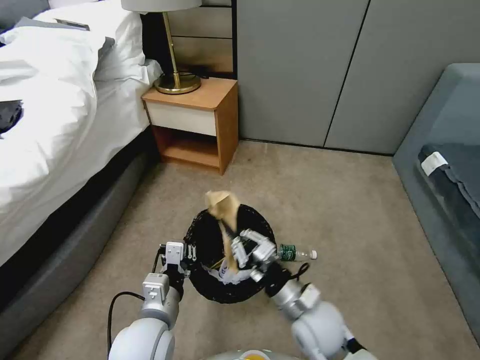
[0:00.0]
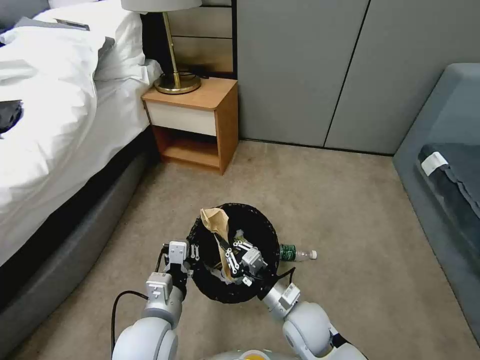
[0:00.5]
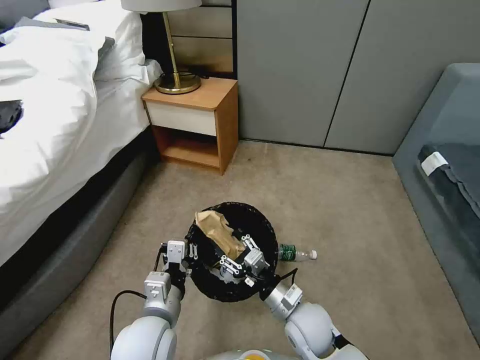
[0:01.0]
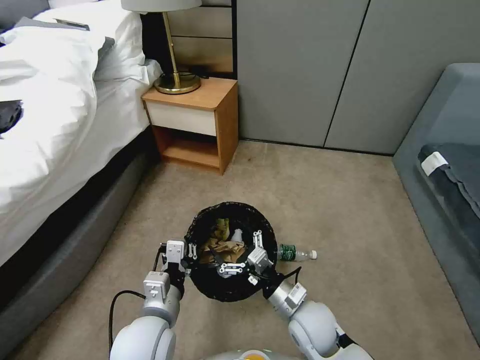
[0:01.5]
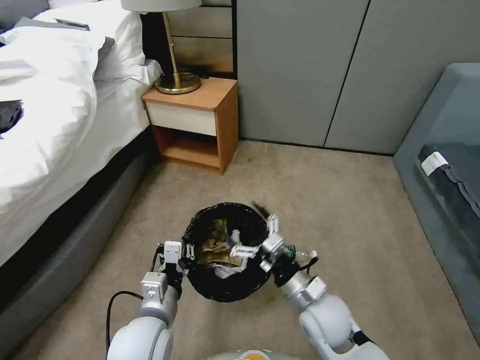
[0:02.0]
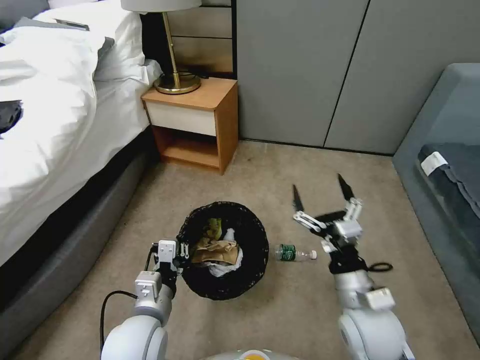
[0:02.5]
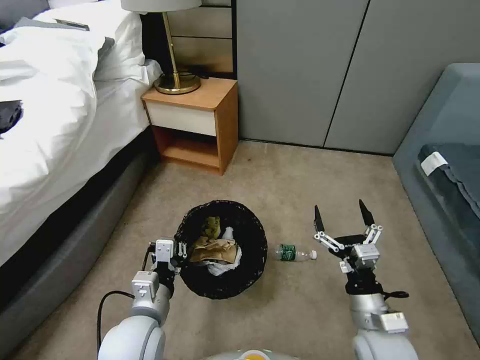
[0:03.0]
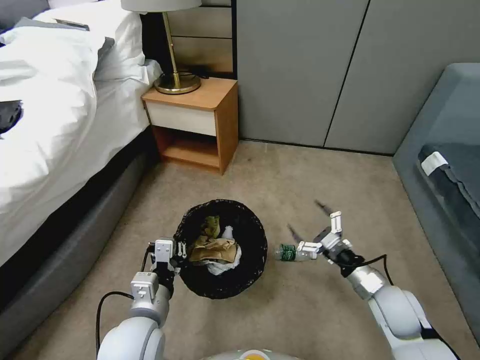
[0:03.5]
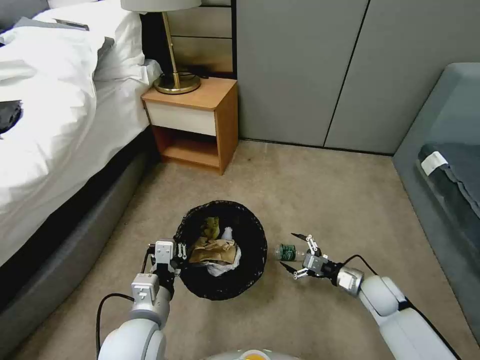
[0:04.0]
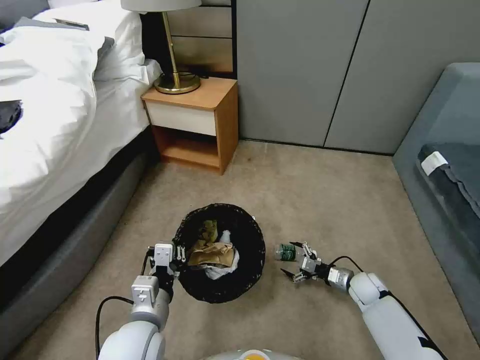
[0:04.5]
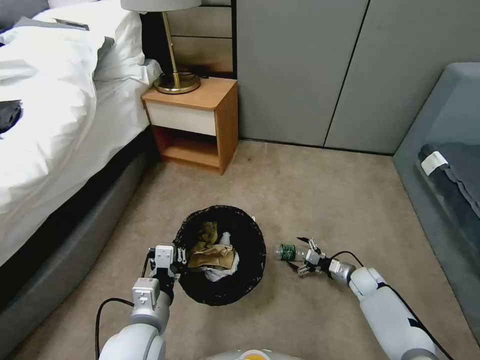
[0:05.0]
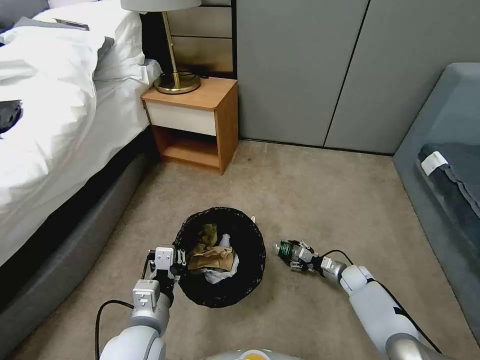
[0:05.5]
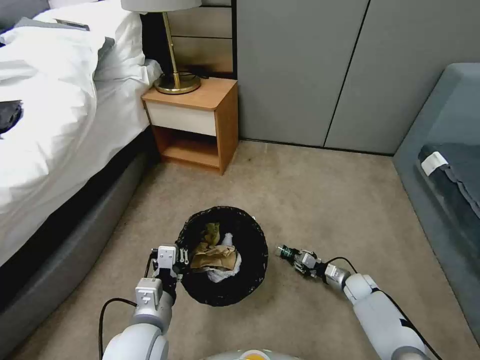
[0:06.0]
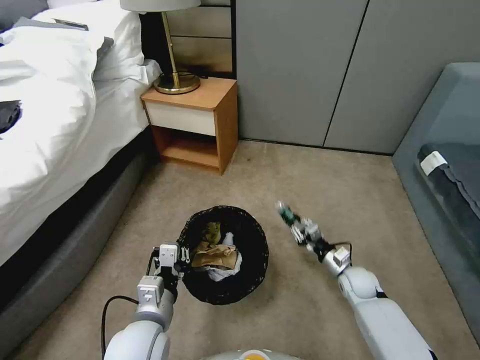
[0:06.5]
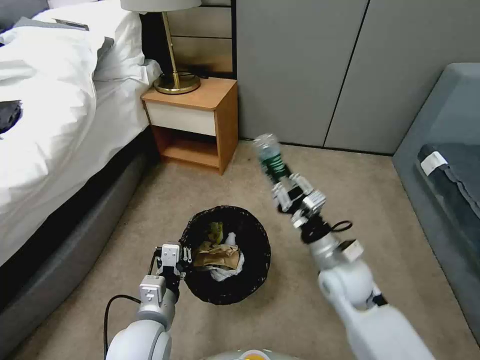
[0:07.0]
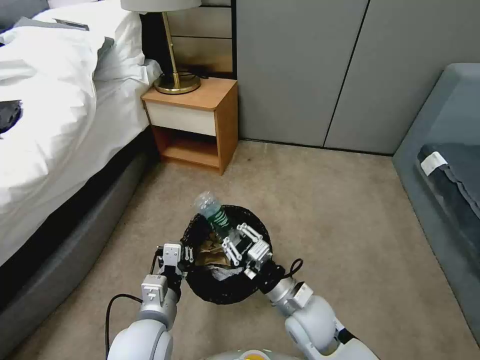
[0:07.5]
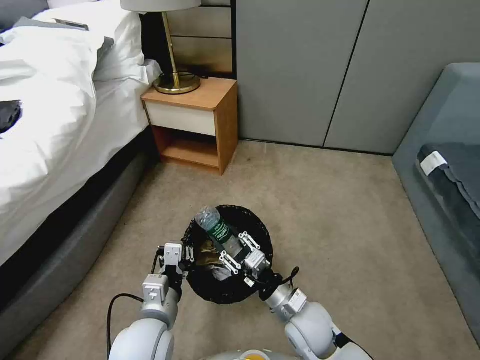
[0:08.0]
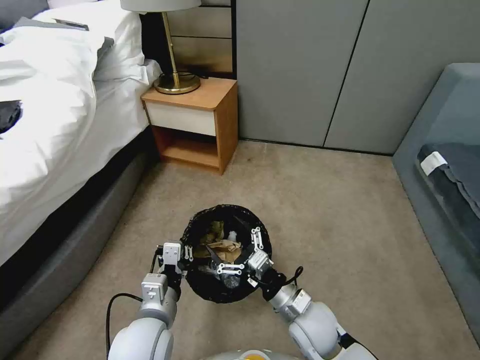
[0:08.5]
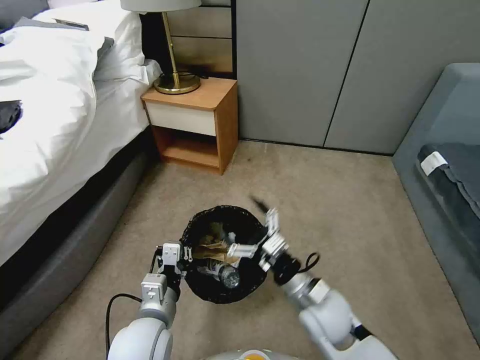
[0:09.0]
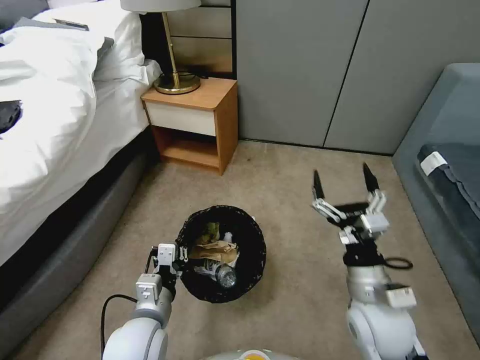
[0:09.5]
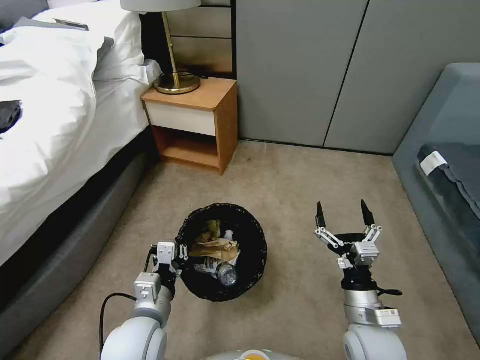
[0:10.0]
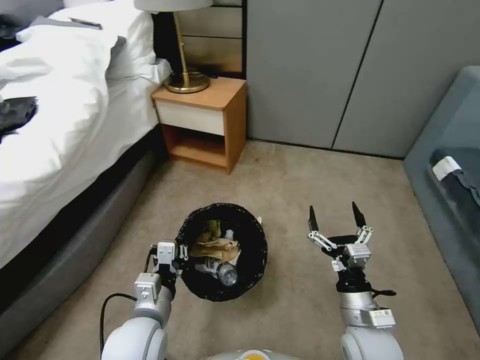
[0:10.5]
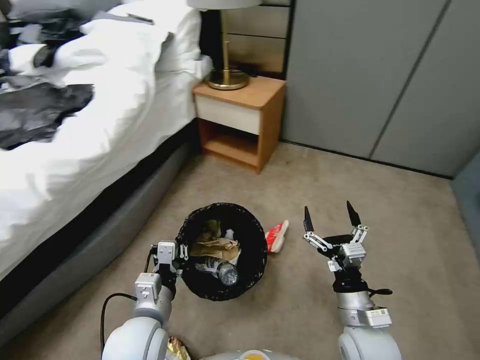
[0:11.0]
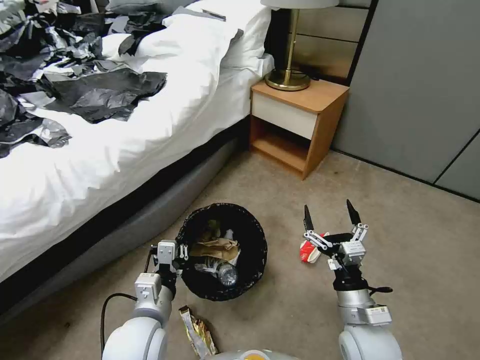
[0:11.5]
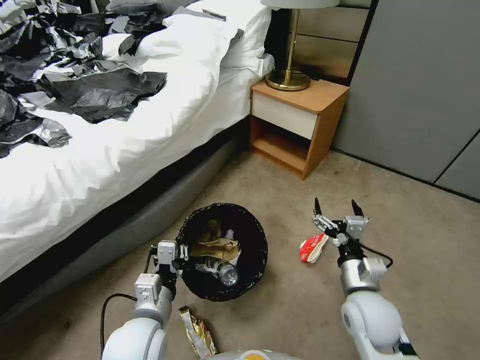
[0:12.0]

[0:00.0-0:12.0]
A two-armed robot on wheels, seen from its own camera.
Task of the whole recording: Pick up the trash bin, then pick up the garbage from the floor and place it into the trash bin.
0.0 to 2.0 s: The right gripper opens.
2.0 to 4.0 s: The right gripper goes roughly 25 cm to the right, downward and forward.
4.0 to 6.0 s: The right gripper heads downward, covering roughly 10 cm, and closes up.
6.0 to 8.0 s: The right gripper heads to the left, upward and backward, covering some 35 cm.
8.0 to 10.0 s: The right gripper heads to the right, covering approximately 10 cm, reaches approximately 10 cm upward, then returns, and opens up.

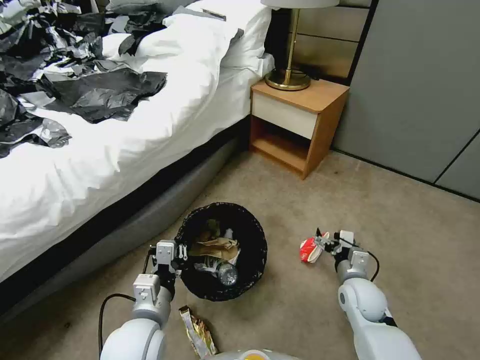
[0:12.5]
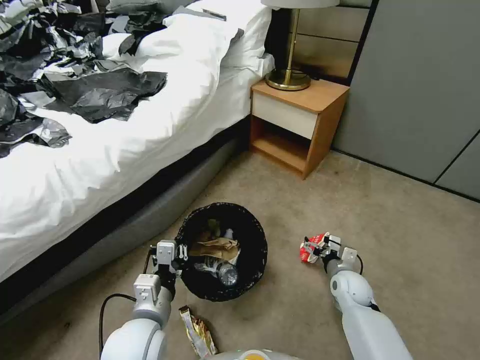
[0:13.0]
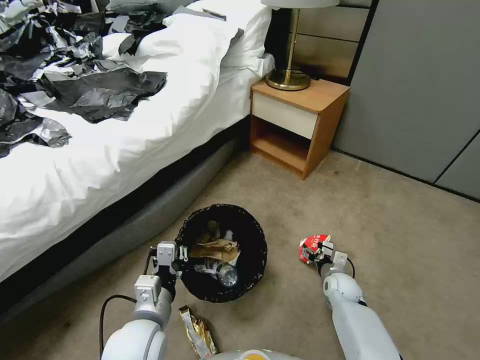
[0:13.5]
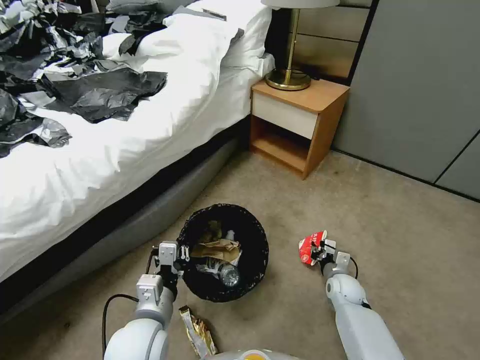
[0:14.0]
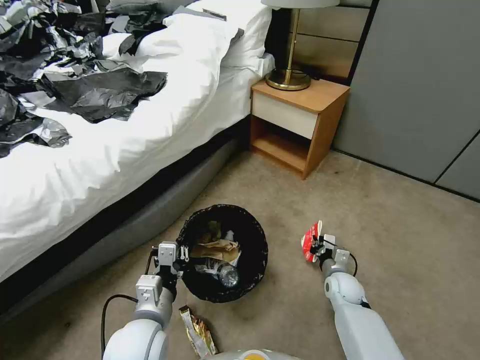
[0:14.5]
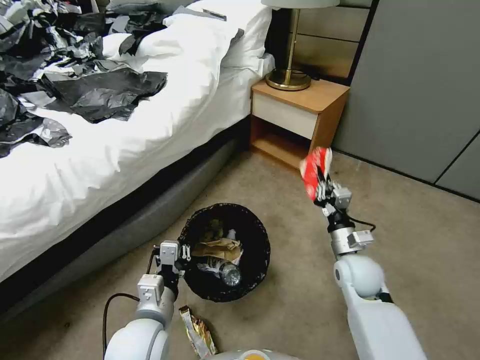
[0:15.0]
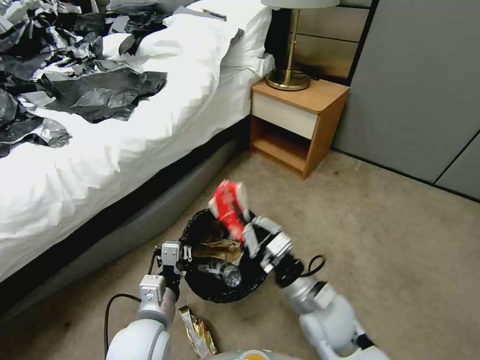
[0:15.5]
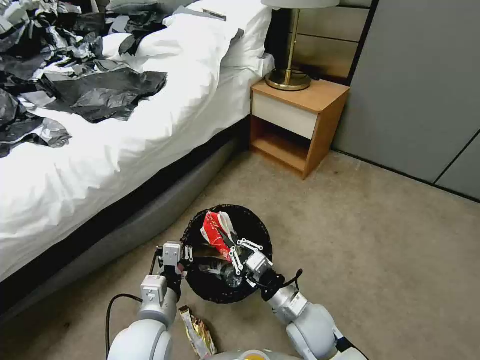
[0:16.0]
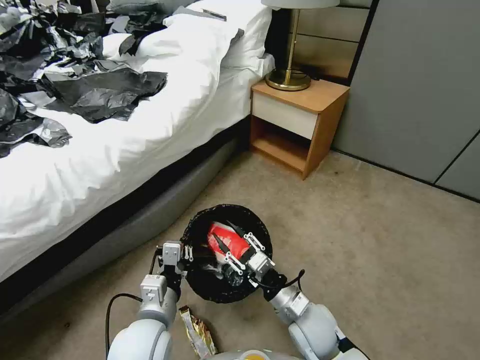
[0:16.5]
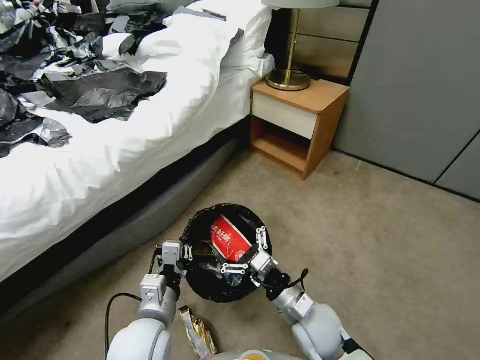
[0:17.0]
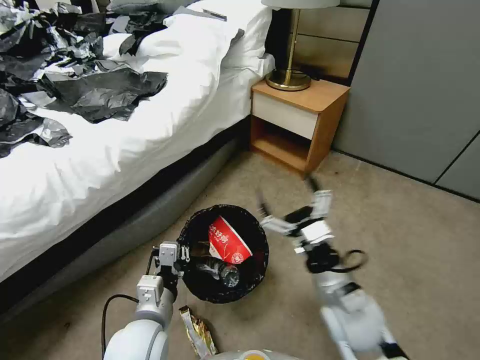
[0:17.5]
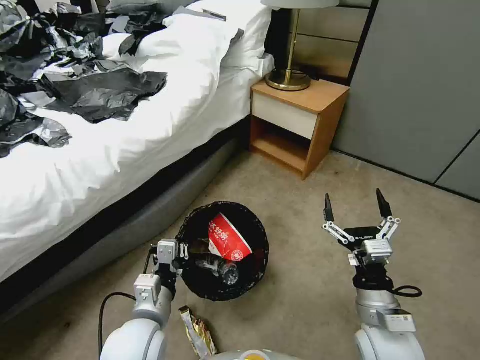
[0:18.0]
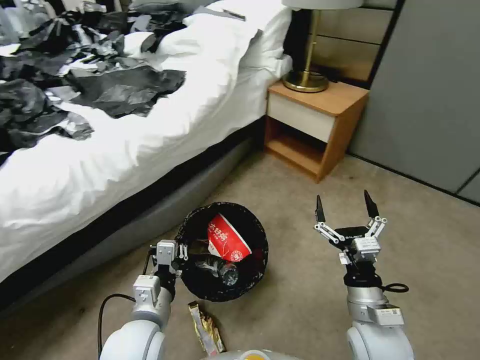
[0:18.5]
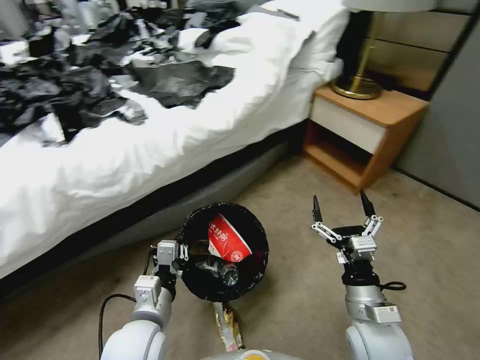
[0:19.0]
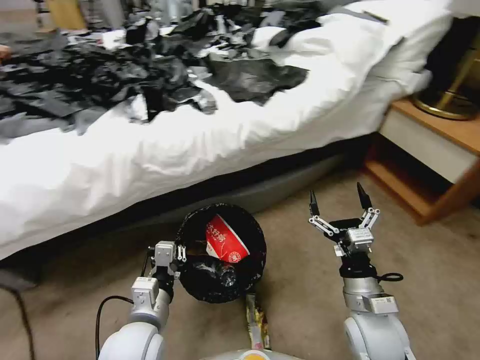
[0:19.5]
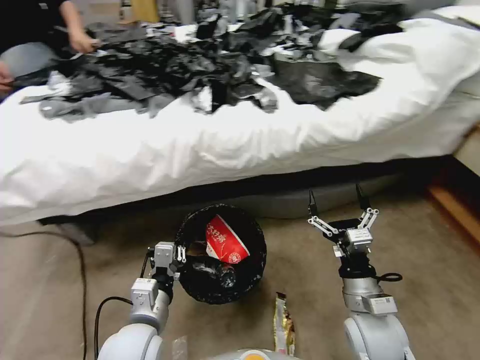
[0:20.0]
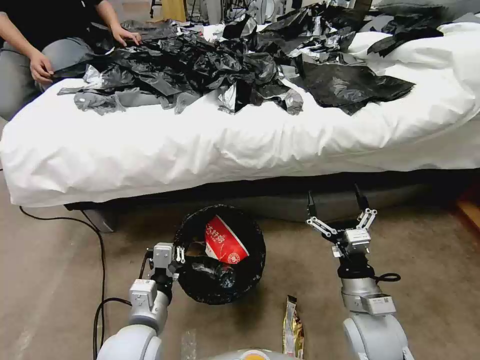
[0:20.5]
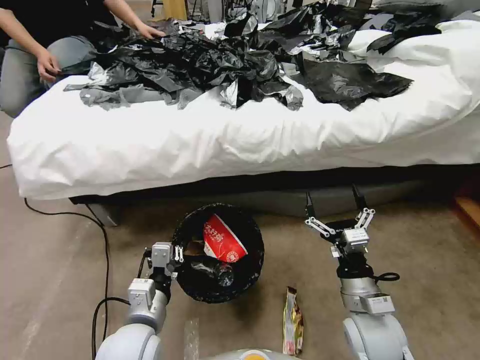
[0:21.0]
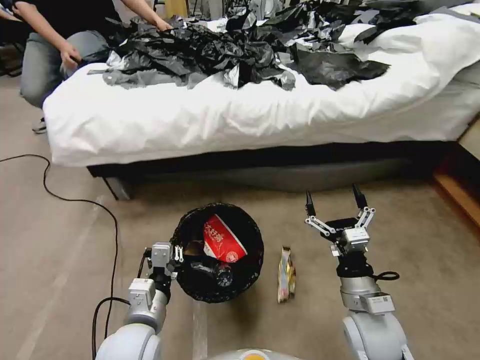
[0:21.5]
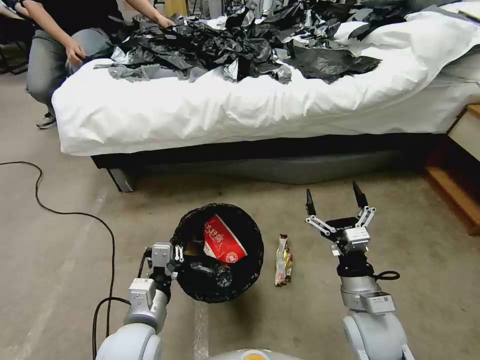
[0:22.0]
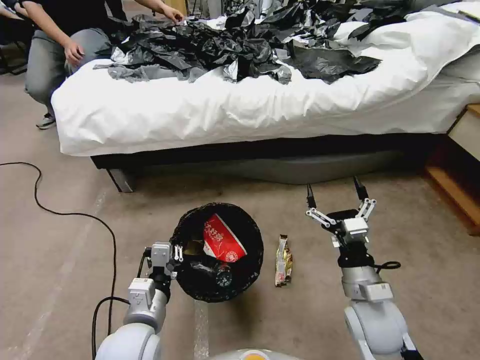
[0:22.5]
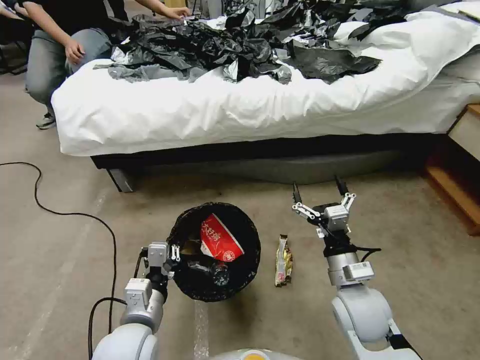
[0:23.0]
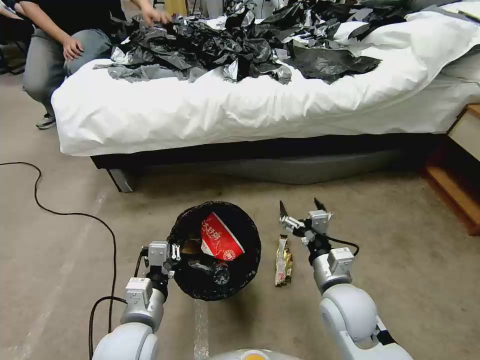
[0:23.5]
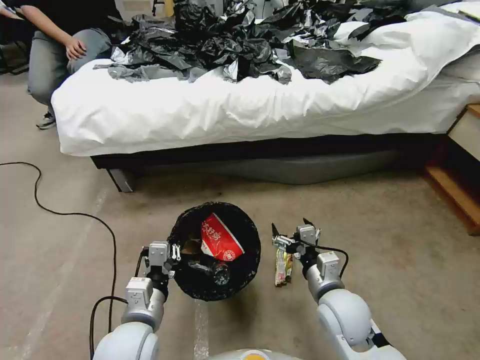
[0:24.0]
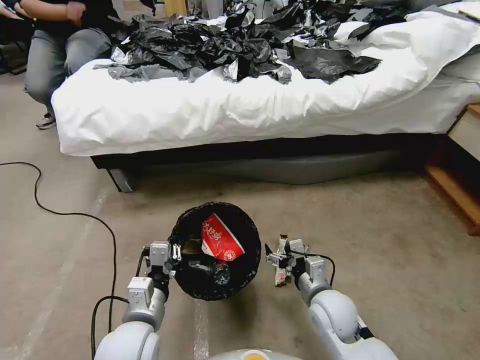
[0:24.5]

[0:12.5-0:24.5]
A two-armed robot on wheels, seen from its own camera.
Task of the whole recording: Pick up the trash bin, then pick up the garbage from the floor and place it into the trash bin.
12.5 to 14.5 s: The right gripper shifts roughly 10 cm downward and forward, and closes.
14.5 to 16.5 s: The right gripper is displaced to the left, upward and backward by about 20 cm, and opens.
16.5 to 18.5 s: The right gripper goes about 10 cm to the right and upward, and opens.
22.5 to 24.5 s: The right gripper heads downward and to the left, covering about 10 cm.

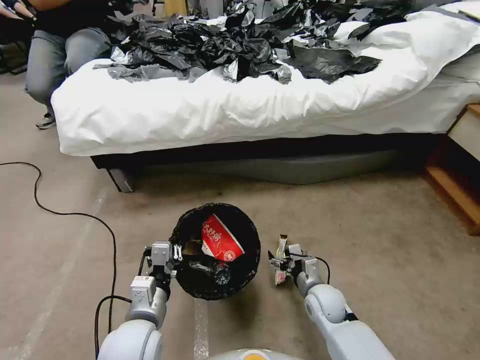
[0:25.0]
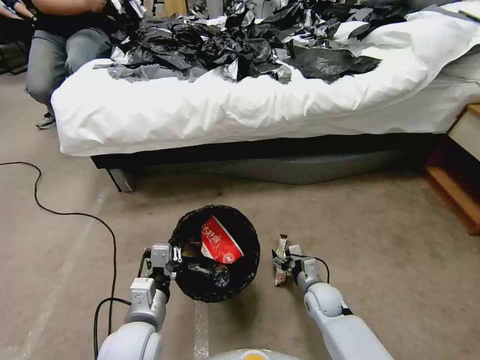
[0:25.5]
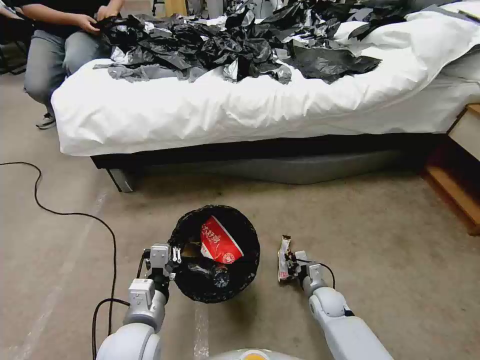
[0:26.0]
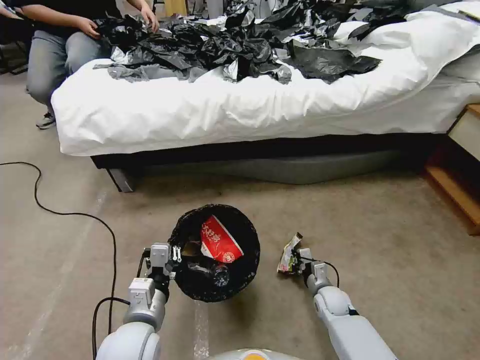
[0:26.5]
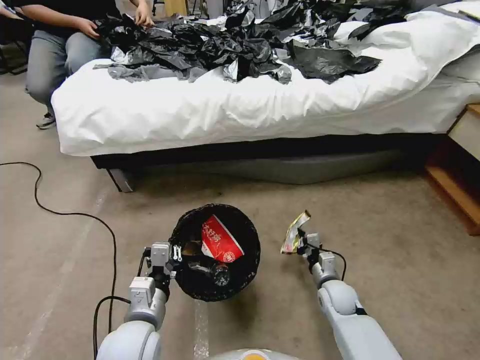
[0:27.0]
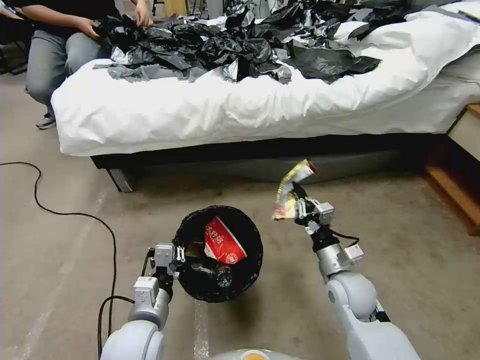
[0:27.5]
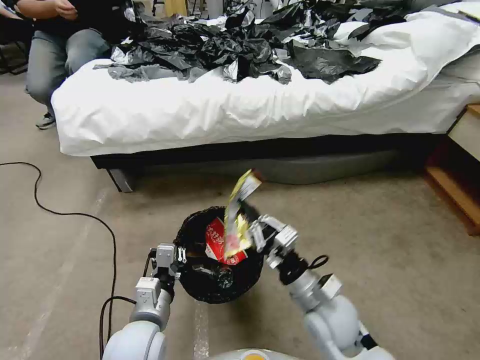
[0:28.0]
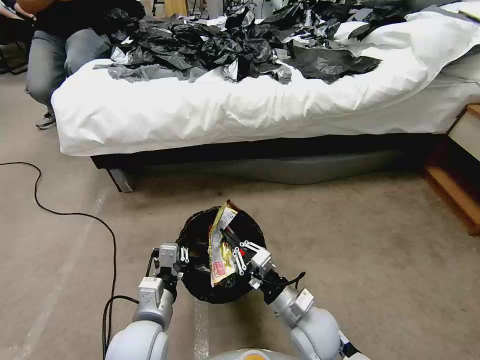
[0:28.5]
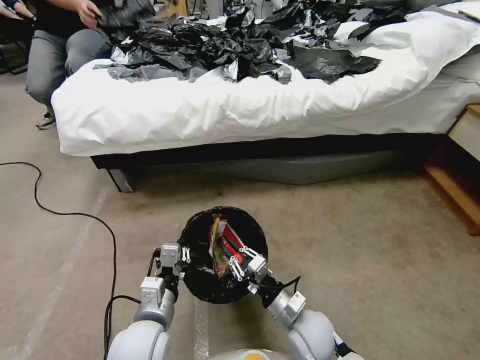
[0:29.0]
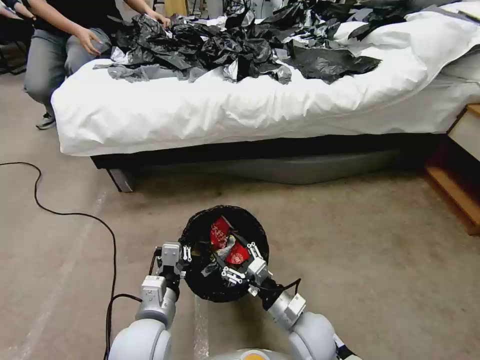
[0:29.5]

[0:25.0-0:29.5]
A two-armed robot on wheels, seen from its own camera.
Task of the whole recording: Pick up the trash bin, then pick up the garbage from the floor and place it into the trash bin.
25.0 to 27.0 s: The right gripper closes.
27.0 to 29.5 s: The right gripper travels to the left, backward and upward by roughly 15 cm, and opens up.
